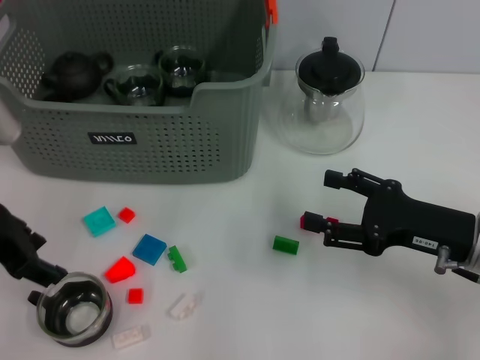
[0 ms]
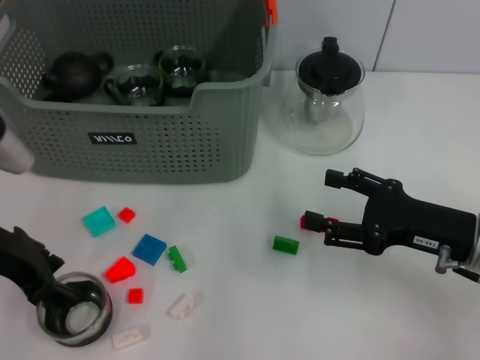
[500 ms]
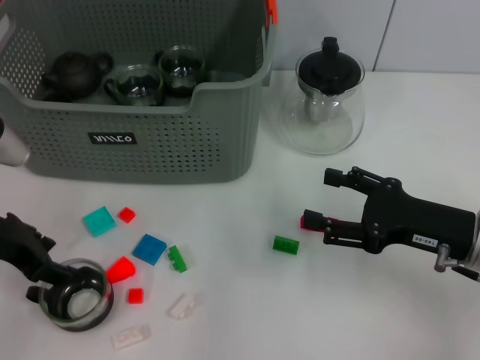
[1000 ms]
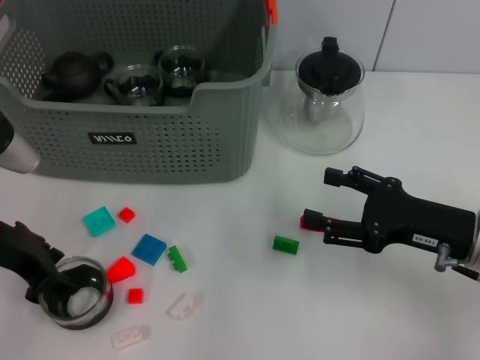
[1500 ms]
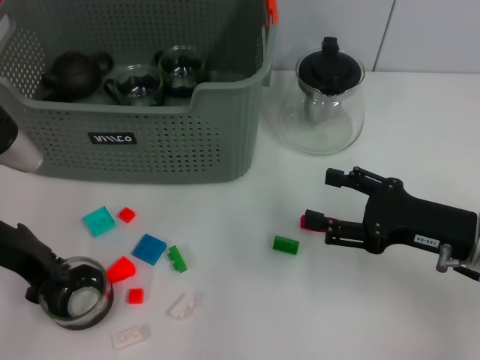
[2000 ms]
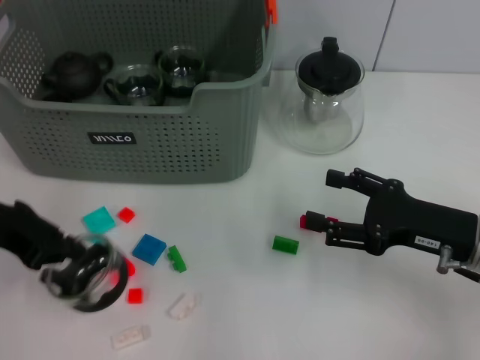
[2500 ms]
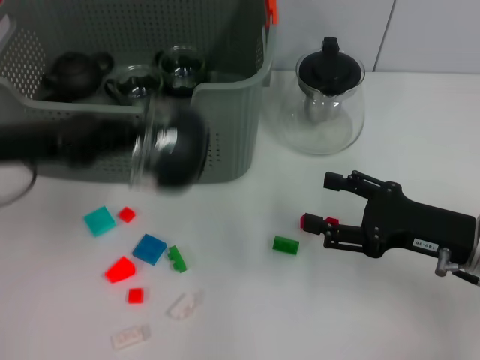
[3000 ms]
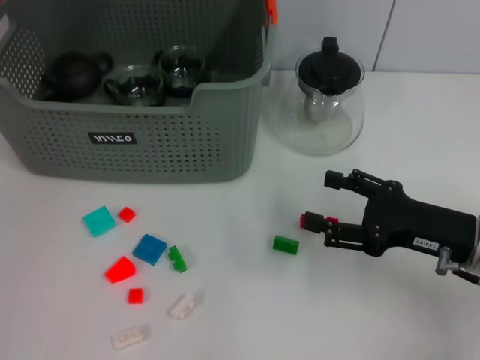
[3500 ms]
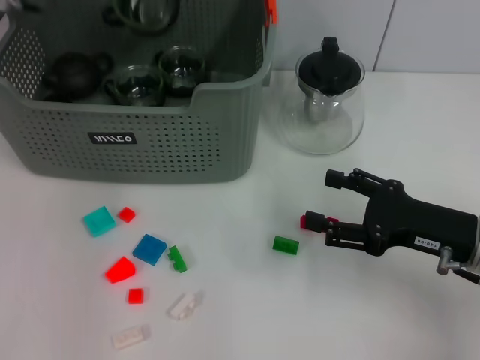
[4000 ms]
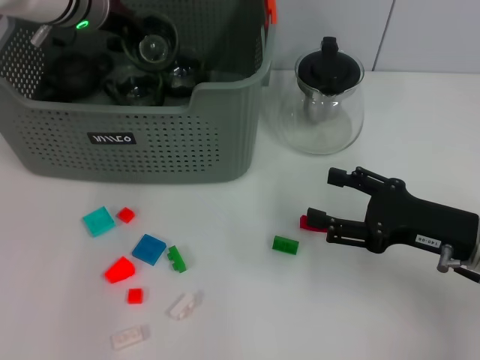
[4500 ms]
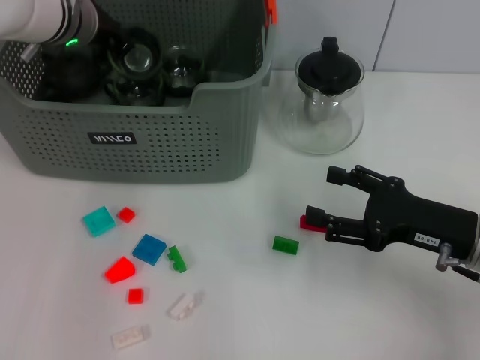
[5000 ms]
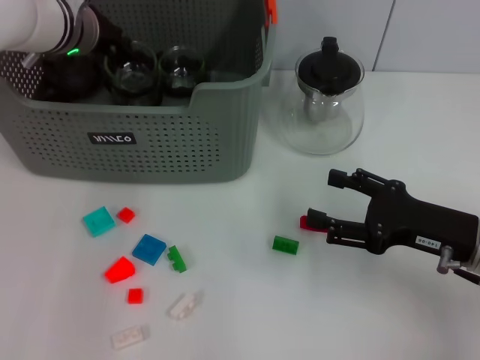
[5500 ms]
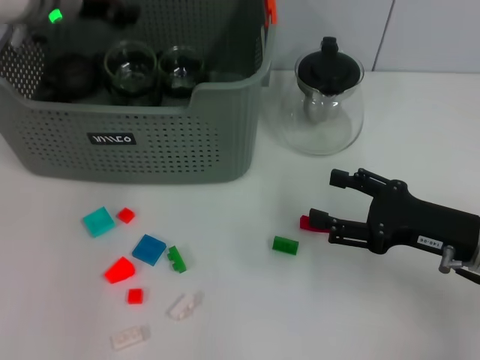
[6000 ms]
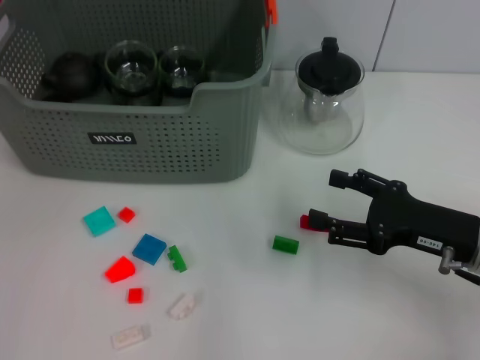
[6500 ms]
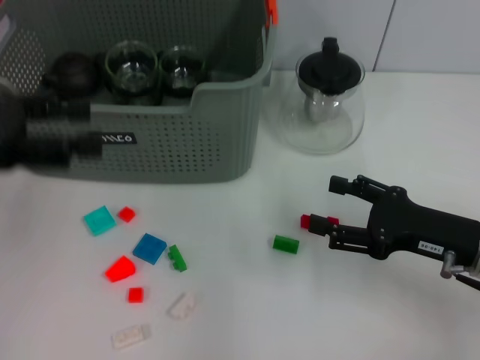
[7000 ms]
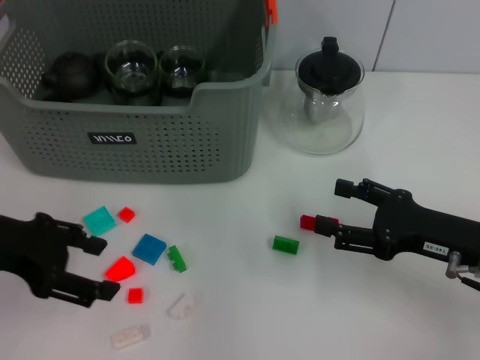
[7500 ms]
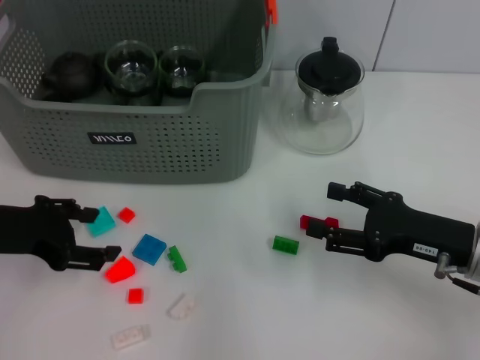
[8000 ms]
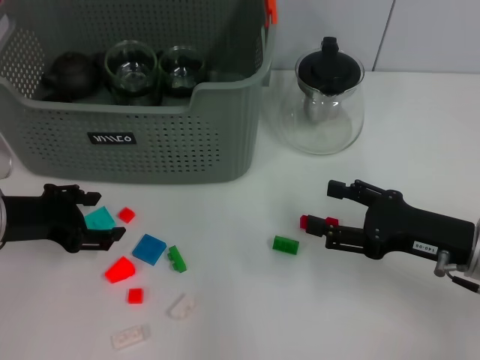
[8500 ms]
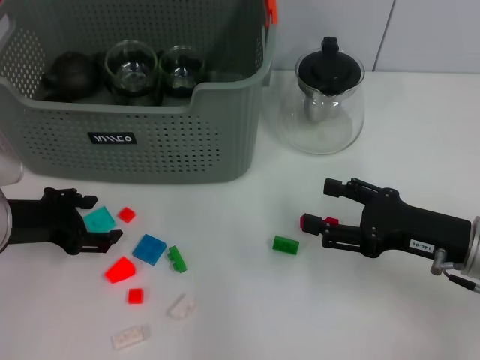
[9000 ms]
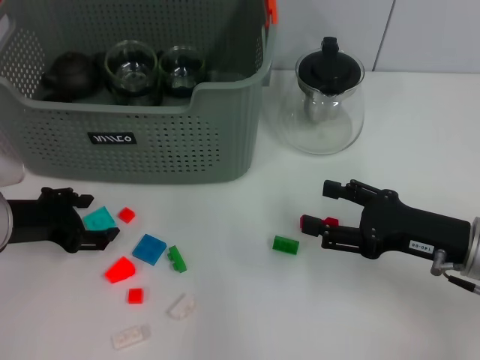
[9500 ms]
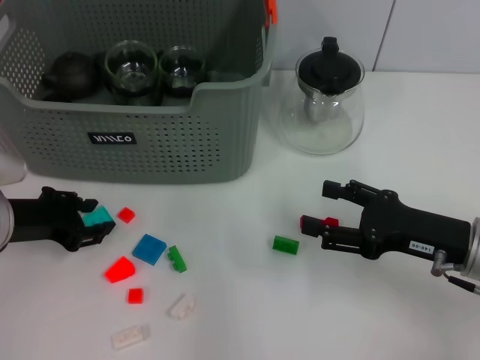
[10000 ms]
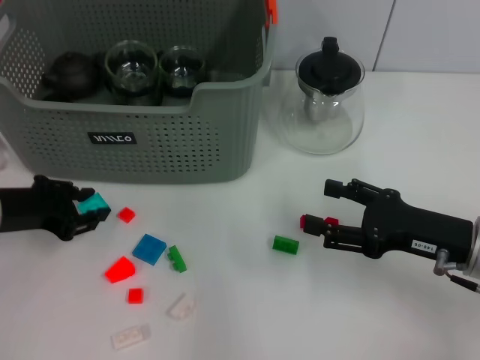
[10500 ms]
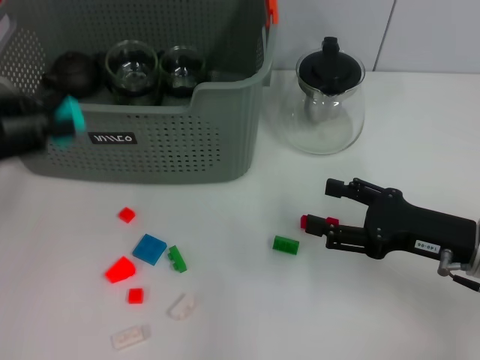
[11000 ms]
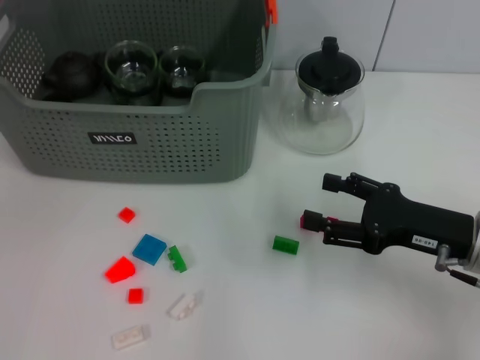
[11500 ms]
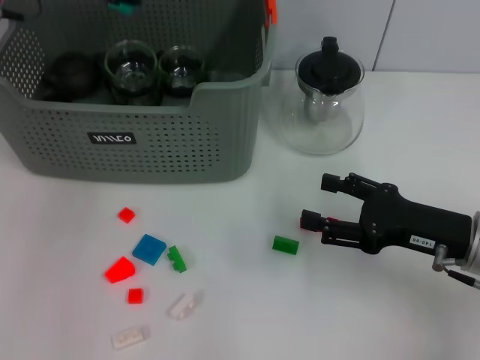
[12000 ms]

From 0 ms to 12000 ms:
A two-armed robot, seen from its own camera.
Task of the whole recording: pick up the teacup on the table and place it into the storage bin, pick up the block on the table and place it into the storage bin.
Step, from 2500 ms to 6500 ms: Place the cup in the storage box with left gripper.
Step, from 7000 ms to 10000 ms: Grasp the light blue block with left gripper.
From 0 ms to 2000 ms: The grippers stay close to where they were, moving slightly.
From 2000 ms to 4000 ms: The left gripper is displaced forward and upward by some 20 cm, and closes up.
From 6000 ms to 8000 ms: The left gripper is displaced backward, downward and to the left by some 20 cm, and opens its fingers.
From 8000 ms to 10000 ms: The left gripper shifts about 5 cm downward.
From 10000 ms to 12000 ms: The left gripper shifts approximately 25 cm upward and forward.

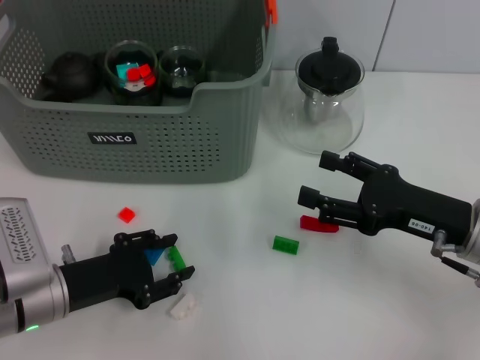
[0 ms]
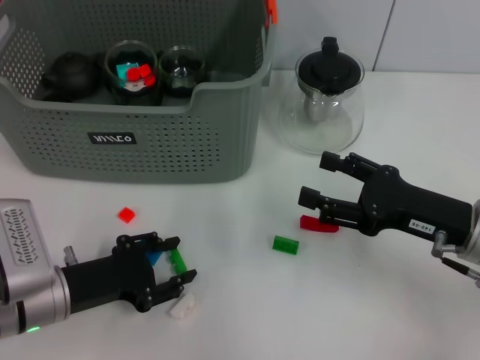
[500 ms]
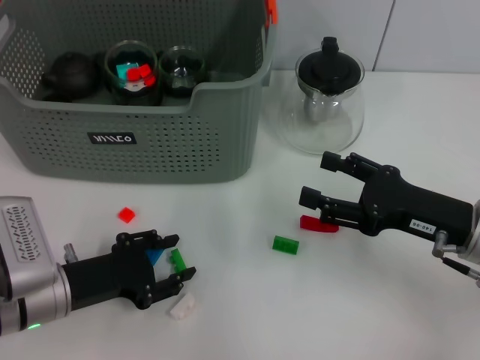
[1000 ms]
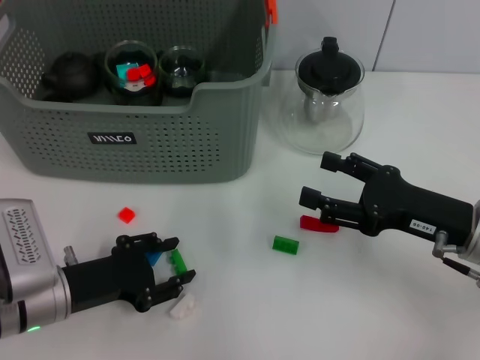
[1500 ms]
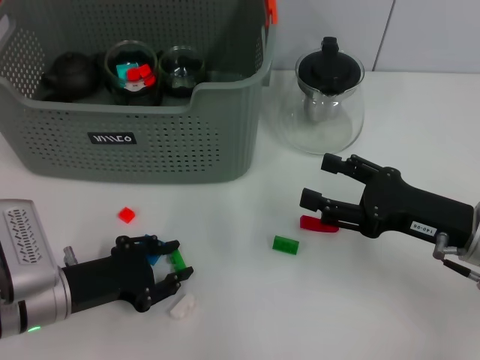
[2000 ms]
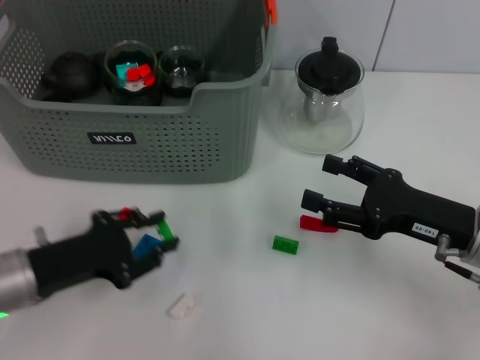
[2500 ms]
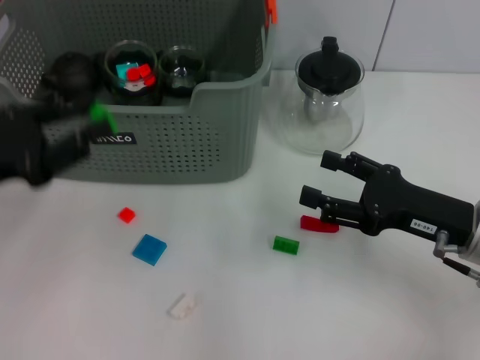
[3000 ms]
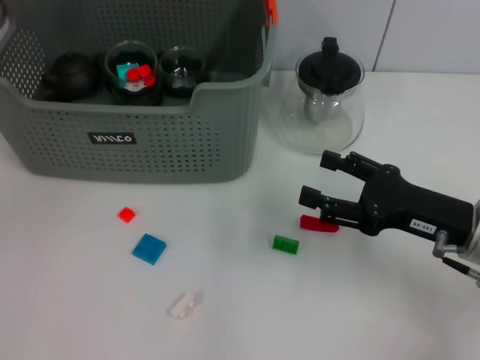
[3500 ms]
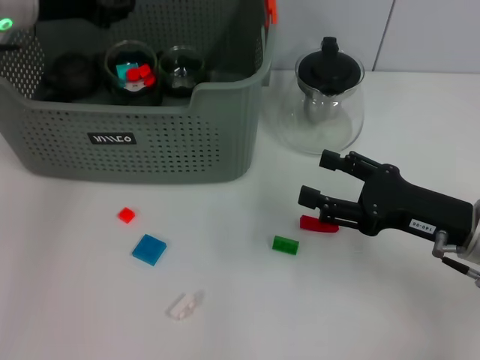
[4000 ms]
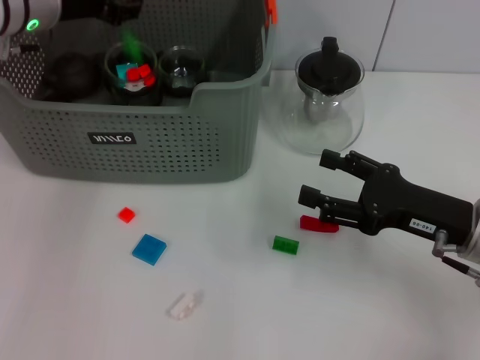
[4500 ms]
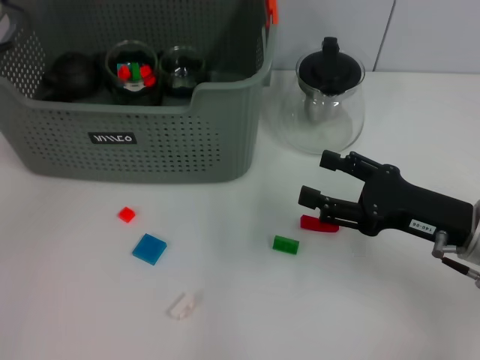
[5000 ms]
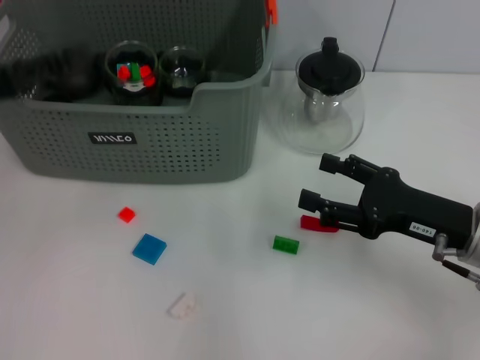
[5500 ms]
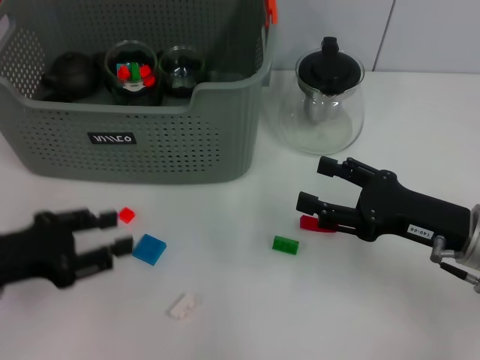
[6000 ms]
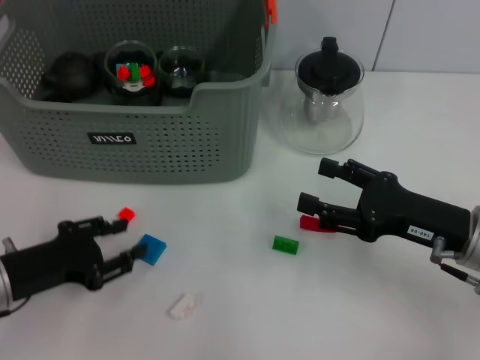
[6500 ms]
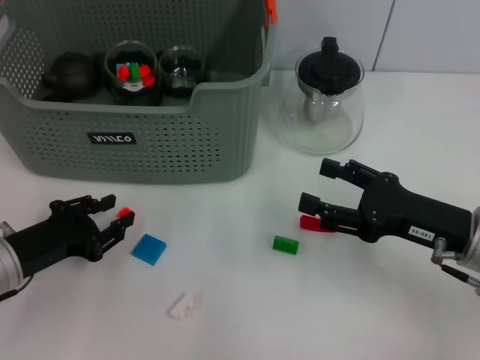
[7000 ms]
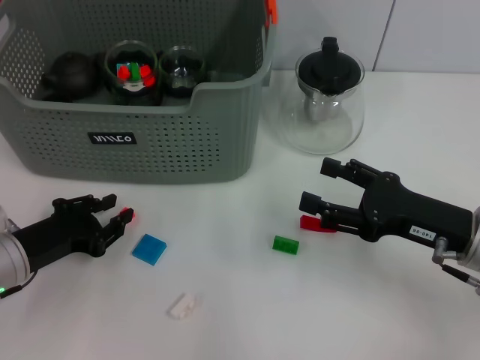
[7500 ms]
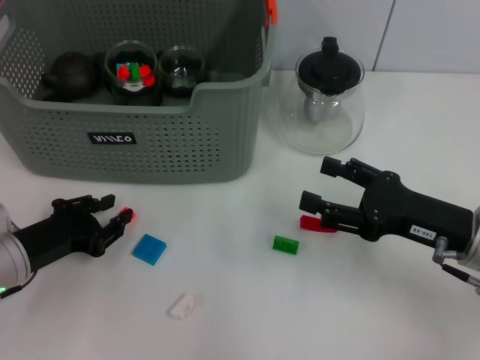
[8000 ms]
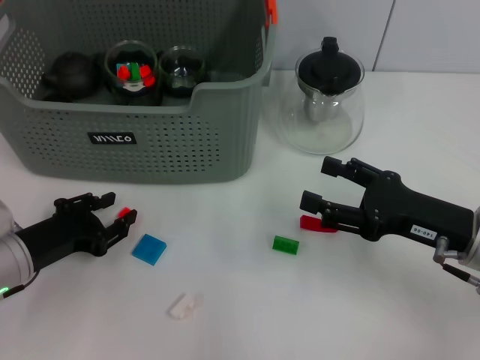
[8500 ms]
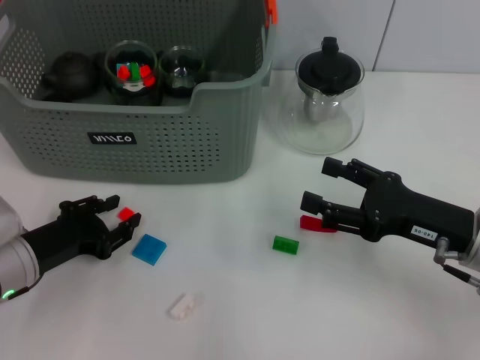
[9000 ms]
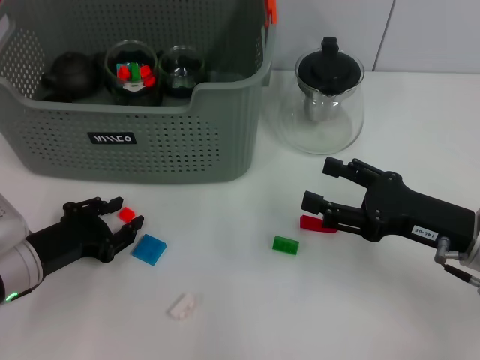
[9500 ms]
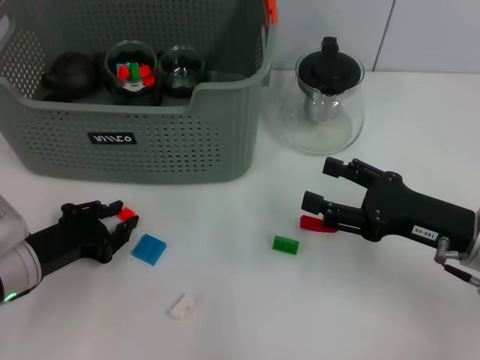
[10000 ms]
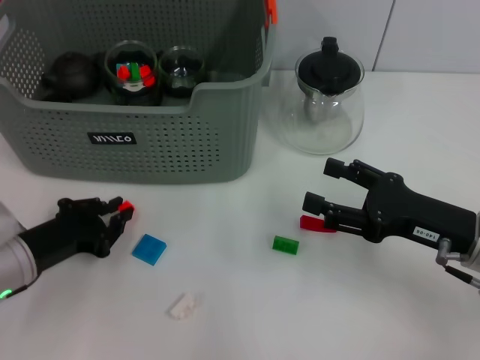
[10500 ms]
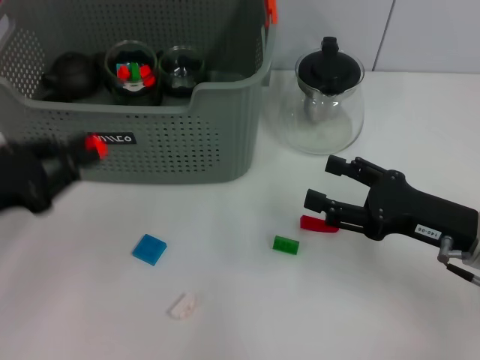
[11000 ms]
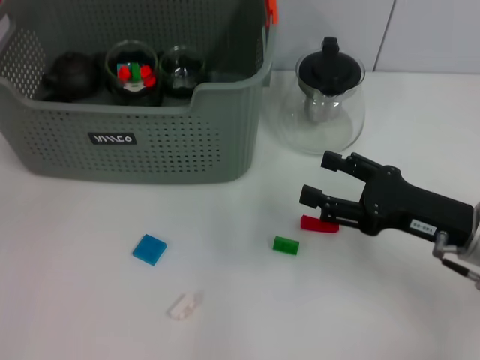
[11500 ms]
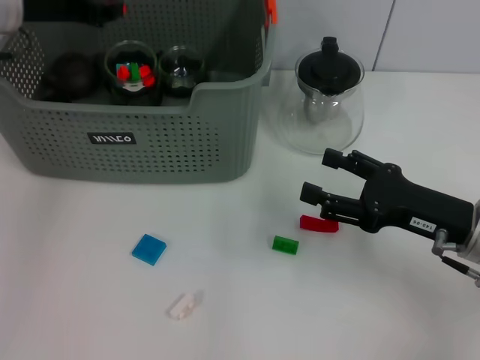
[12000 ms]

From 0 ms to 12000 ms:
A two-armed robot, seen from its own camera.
Task of the whole recording: pick up the teacup on the table and place it into the storage bin, pick up the block on the table and place it into the storage bin.
Step, from 0 ms to 2000 ms: Grasp the green block with left gripper.
Step, from 2500 ms to 5000 ms: Place the green block in the storage box with left gripper.
Step, from 5500 ms to 10000 ms: Grasp the orange block with left gripper.
From 0 ms to 2000 ms: Both grippers stay about where they are.
From 2000 ms to 4000 ms: The left gripper travels upward and forward by some 30 cm.
From 4000 ms to 6000 ms: The left gripper is displaced backward and downward by roughly 25 cm.
From 6000 ms to 8000 ms: The left gripper shifts some 5 cm downward.
From 8000 ms to 10000 ms: Both grippers stay about where they are.
From 10000 ms to 12000 ms: The left gripper travels upward and forward by roughly 25 cm.

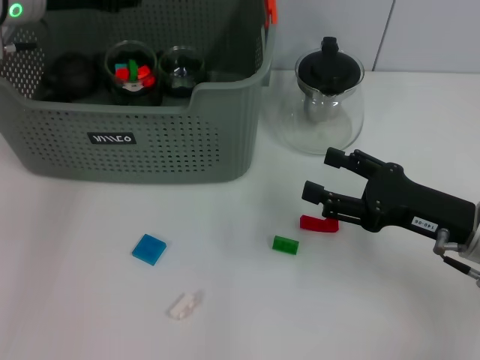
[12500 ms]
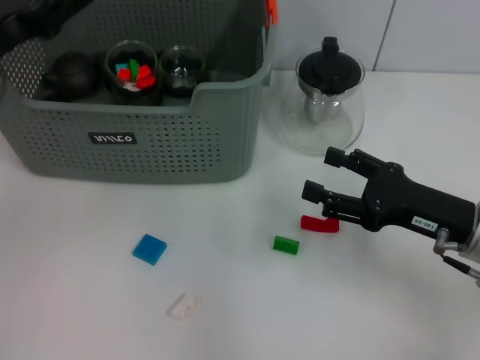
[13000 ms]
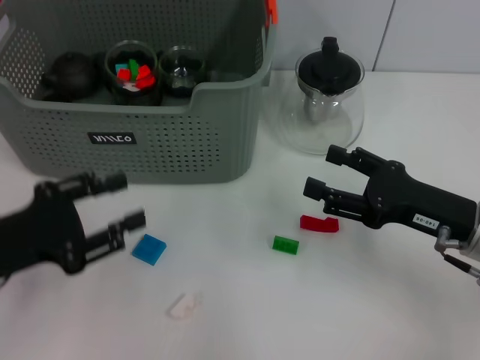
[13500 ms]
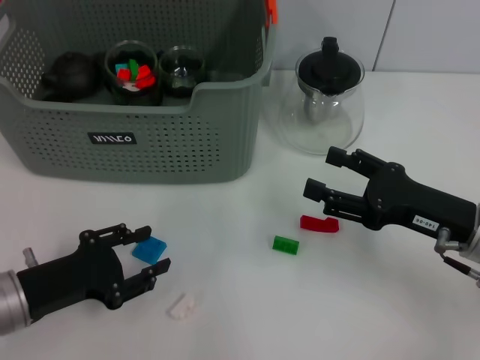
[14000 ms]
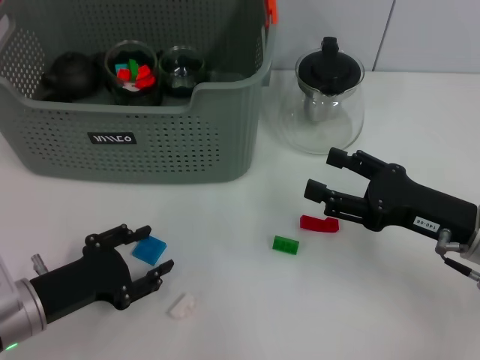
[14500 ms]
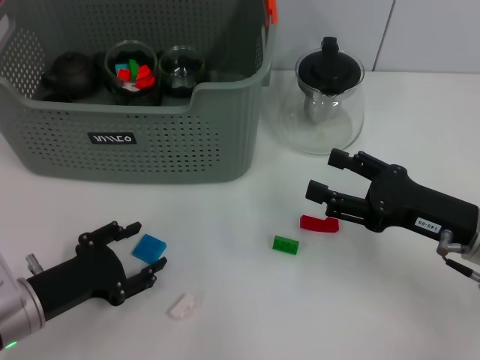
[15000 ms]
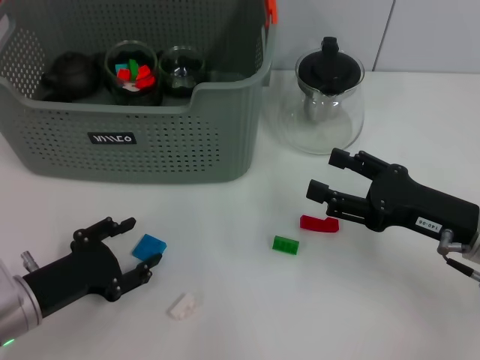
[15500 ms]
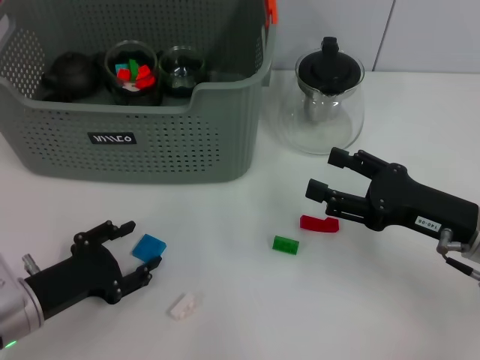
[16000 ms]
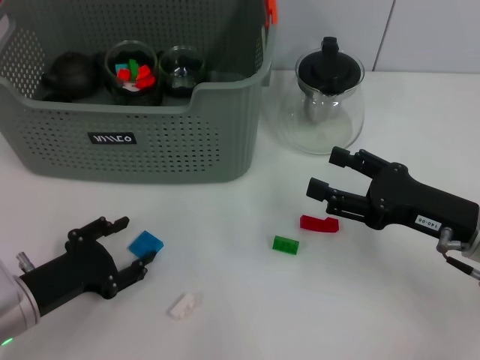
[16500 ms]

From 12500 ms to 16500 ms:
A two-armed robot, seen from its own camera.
Task of the whole recording: pick up the teacup on the table and place it into the storage bin, pick up the block on the table and place it into the storage bin.
From 12500 ms to 14500 ms: The left gripper shifts approximately 30 cm backward and downward, and opens its fingers.
From 14500 ms to 16500 ms: The grippers move only a little.
